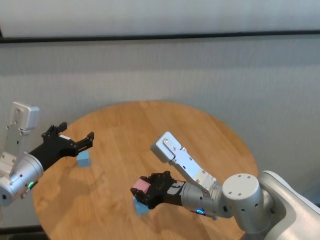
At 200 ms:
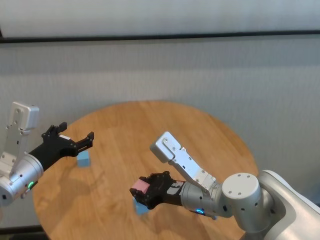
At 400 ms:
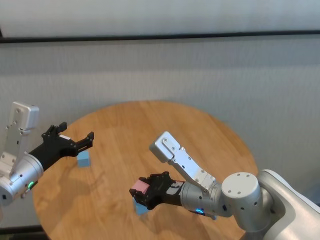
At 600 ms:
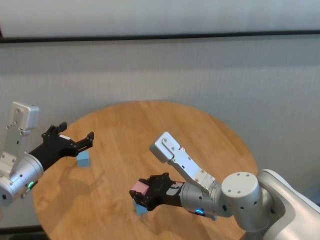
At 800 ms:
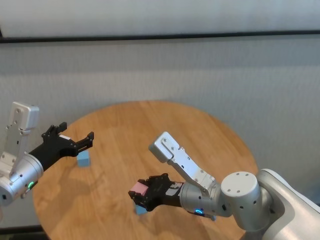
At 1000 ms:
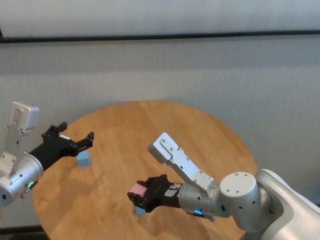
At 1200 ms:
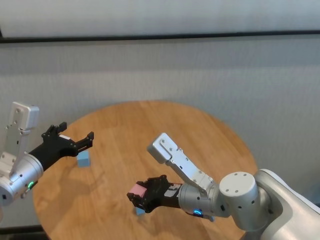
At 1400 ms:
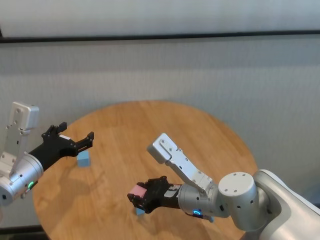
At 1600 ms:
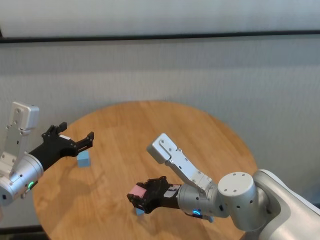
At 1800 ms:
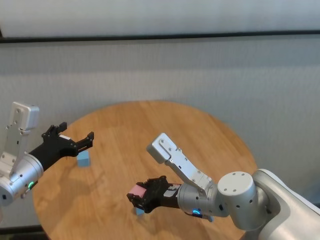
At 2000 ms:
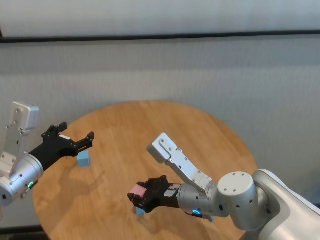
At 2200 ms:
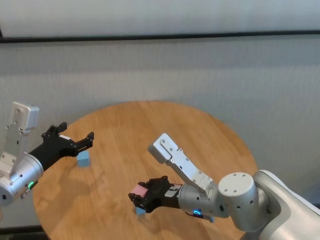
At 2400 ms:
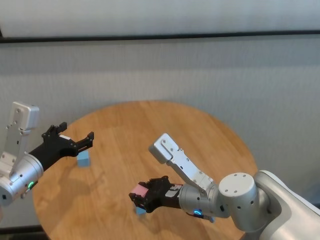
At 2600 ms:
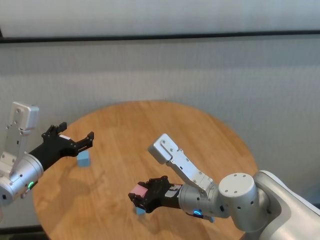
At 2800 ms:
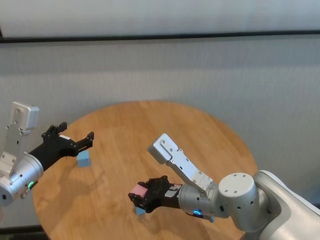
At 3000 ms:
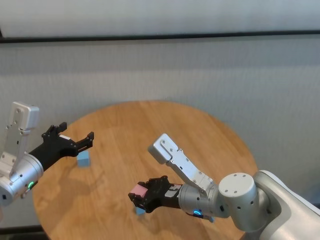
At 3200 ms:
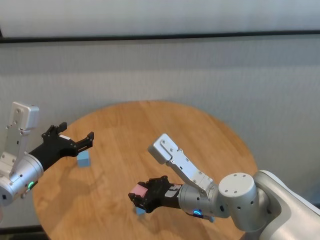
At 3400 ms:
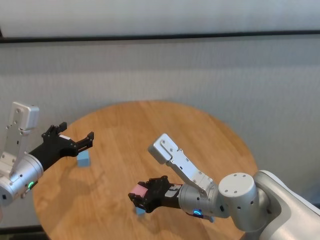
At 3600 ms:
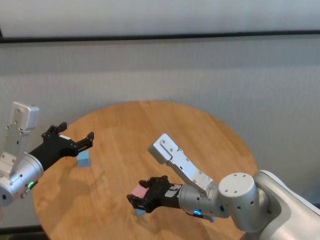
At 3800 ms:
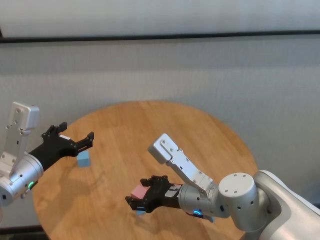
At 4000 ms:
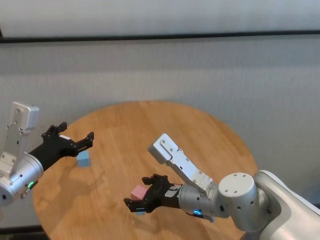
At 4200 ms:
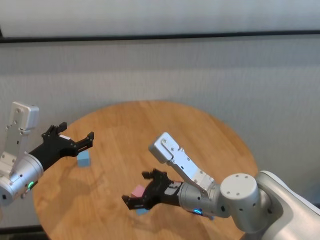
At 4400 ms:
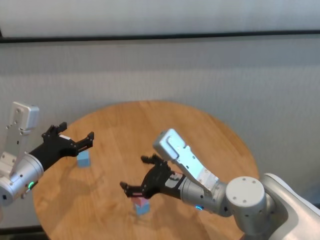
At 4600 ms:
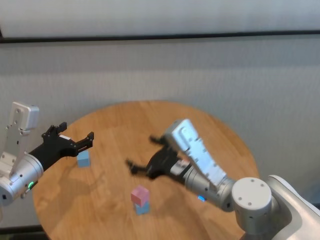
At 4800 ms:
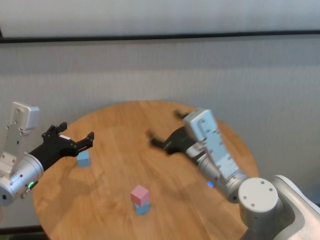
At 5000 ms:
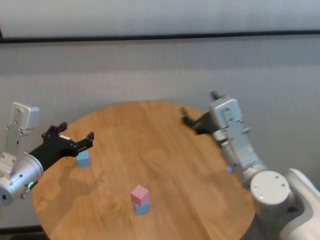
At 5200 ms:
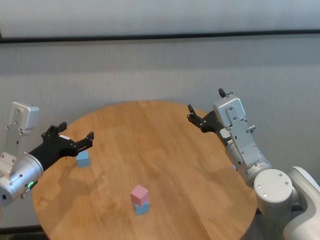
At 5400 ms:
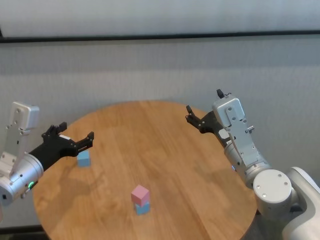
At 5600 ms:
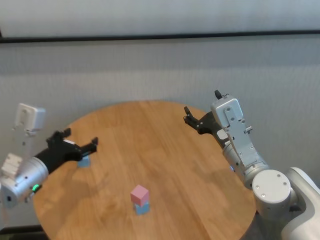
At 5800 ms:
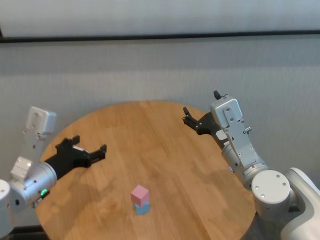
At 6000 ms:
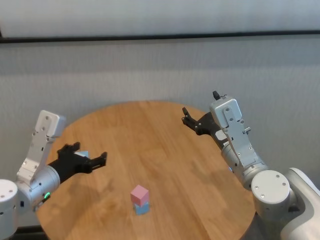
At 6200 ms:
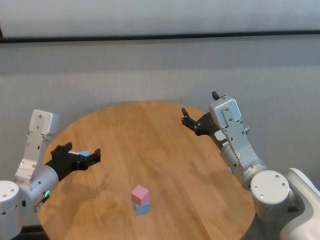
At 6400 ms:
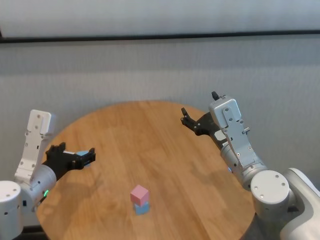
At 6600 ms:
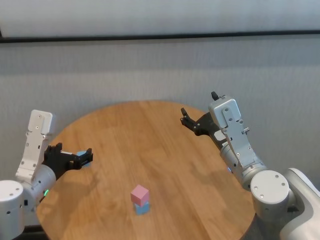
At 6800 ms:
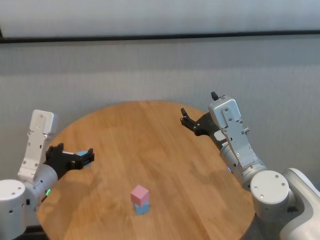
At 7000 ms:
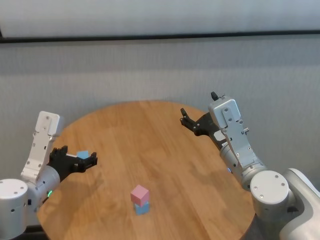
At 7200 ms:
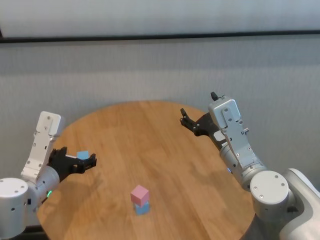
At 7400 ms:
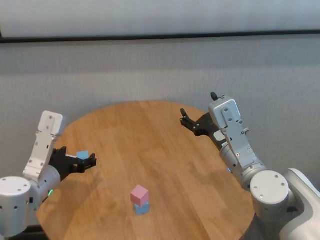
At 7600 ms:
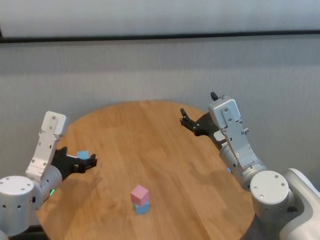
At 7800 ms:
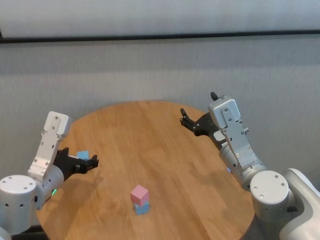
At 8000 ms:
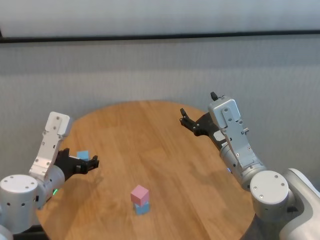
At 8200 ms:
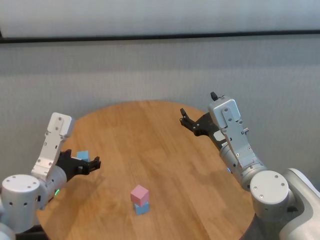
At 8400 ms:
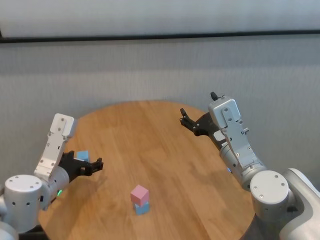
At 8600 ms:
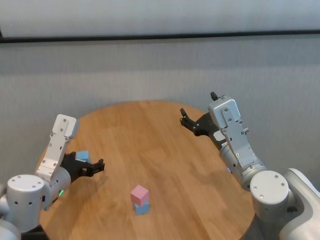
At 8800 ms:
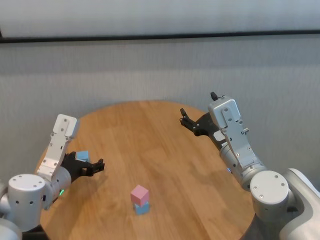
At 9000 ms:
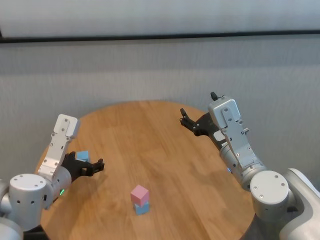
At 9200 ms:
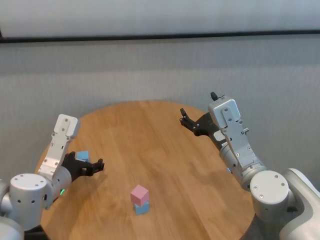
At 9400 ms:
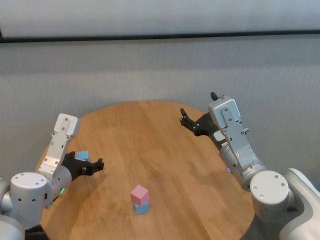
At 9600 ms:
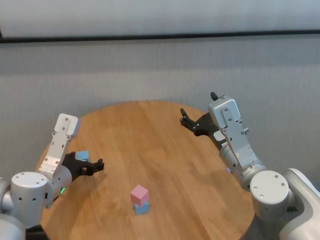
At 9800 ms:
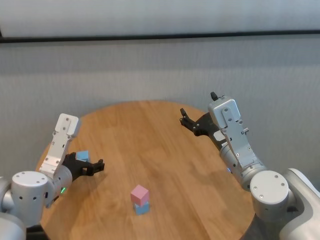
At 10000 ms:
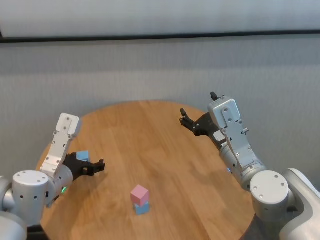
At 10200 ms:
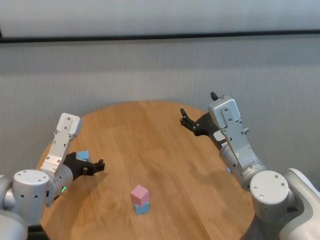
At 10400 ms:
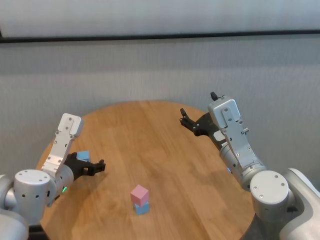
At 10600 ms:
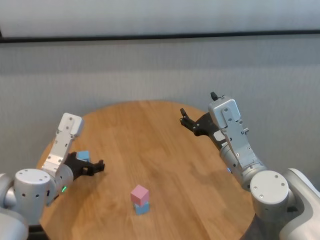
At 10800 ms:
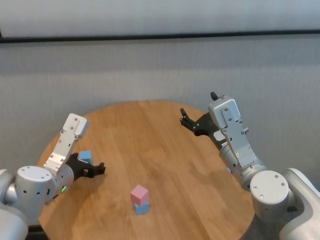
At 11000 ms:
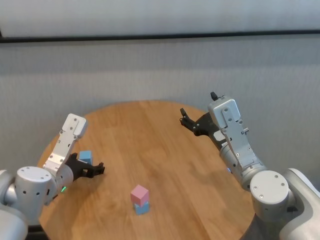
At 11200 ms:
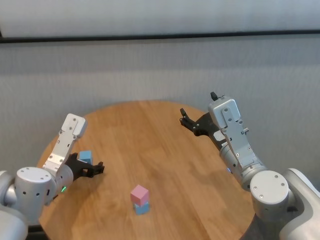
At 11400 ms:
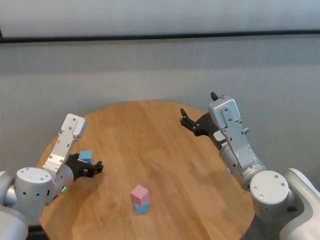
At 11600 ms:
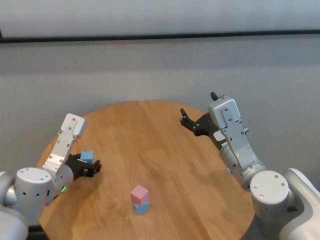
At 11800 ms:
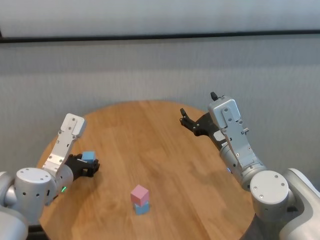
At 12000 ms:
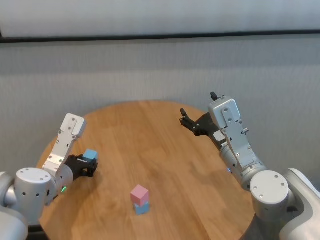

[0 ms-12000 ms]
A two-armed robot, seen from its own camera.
Task of the whole recording: stack building blocks on the table.
Step, 0 ms to 3600 ms: Place the pink building block on the blue building blocks with right gripper.

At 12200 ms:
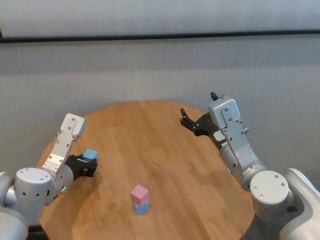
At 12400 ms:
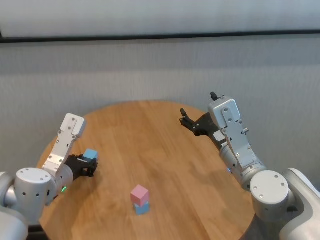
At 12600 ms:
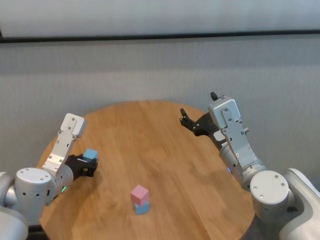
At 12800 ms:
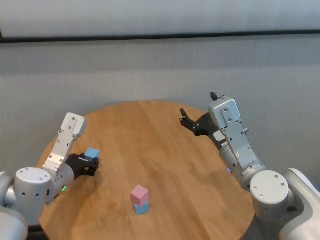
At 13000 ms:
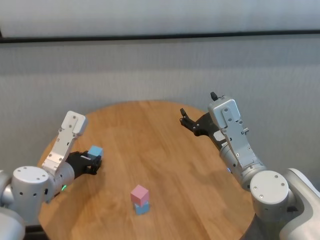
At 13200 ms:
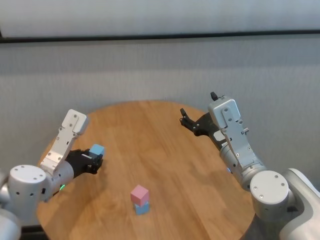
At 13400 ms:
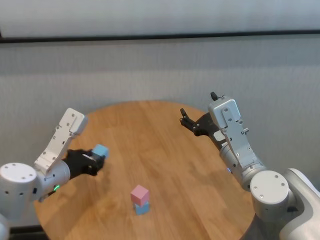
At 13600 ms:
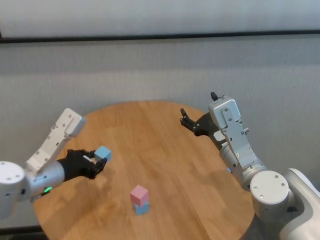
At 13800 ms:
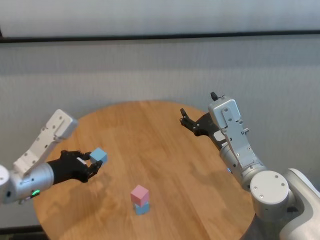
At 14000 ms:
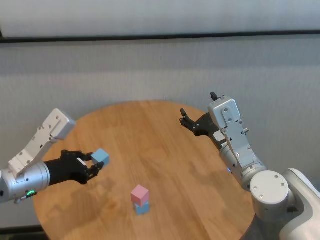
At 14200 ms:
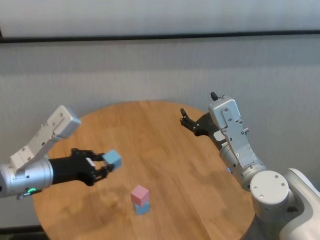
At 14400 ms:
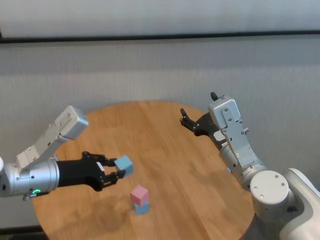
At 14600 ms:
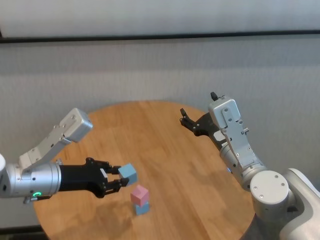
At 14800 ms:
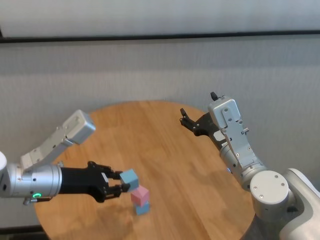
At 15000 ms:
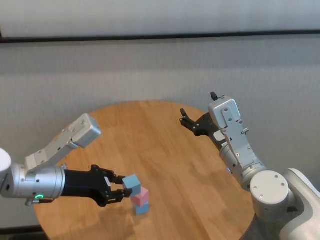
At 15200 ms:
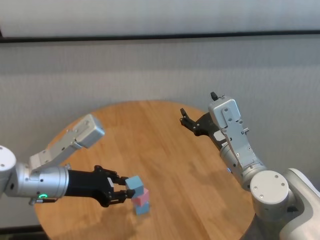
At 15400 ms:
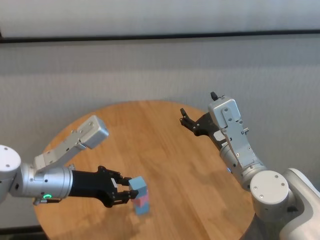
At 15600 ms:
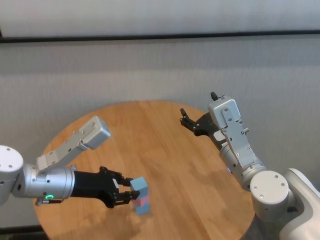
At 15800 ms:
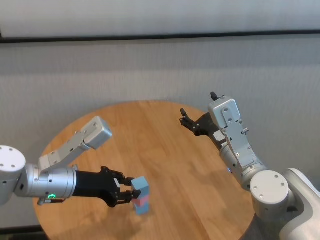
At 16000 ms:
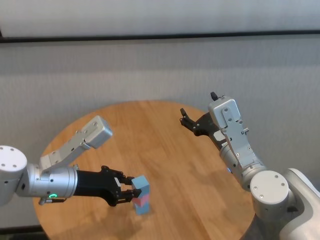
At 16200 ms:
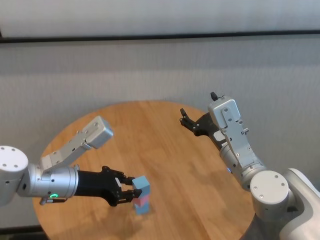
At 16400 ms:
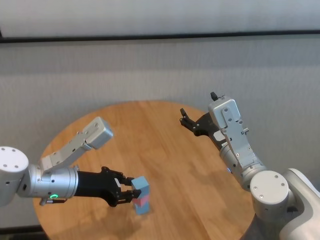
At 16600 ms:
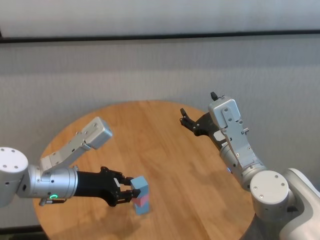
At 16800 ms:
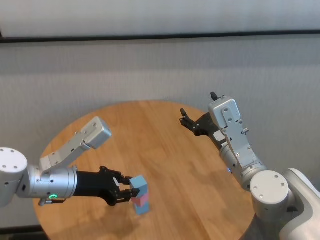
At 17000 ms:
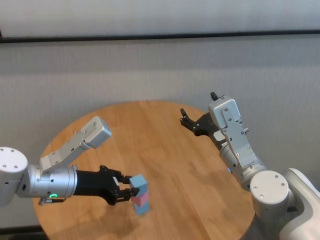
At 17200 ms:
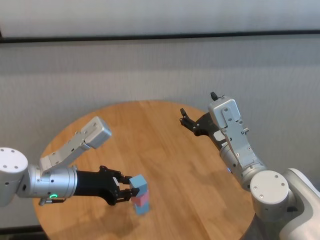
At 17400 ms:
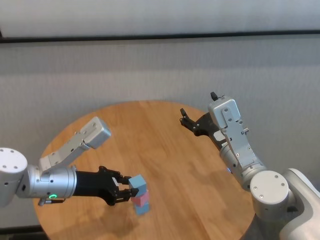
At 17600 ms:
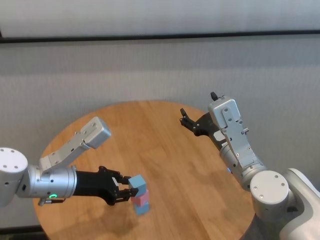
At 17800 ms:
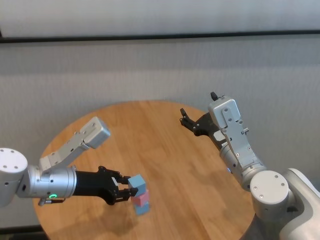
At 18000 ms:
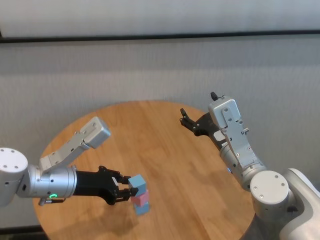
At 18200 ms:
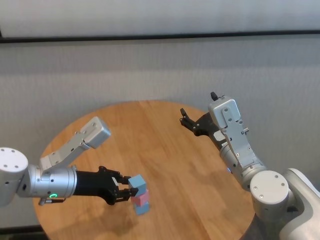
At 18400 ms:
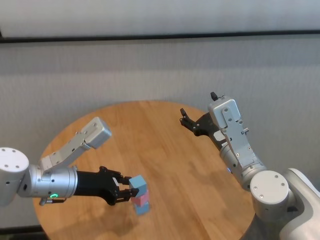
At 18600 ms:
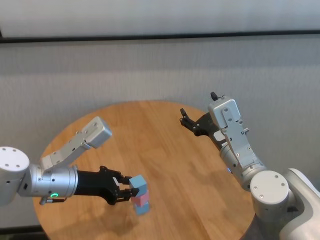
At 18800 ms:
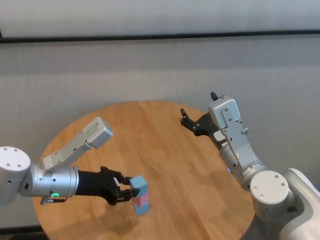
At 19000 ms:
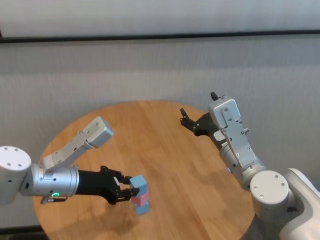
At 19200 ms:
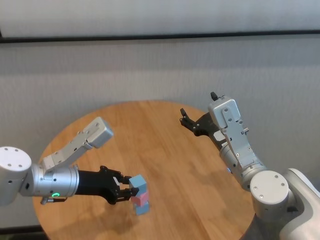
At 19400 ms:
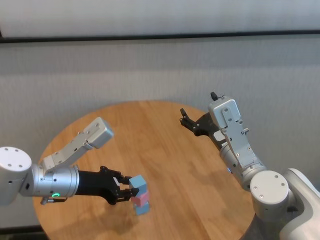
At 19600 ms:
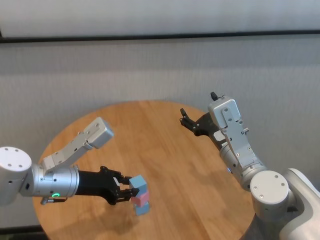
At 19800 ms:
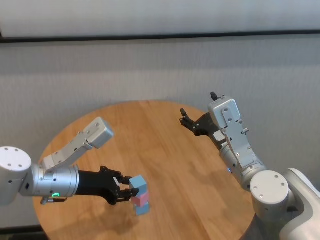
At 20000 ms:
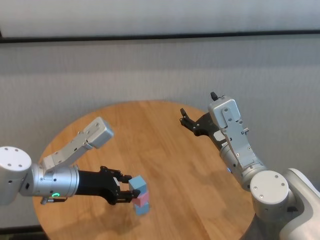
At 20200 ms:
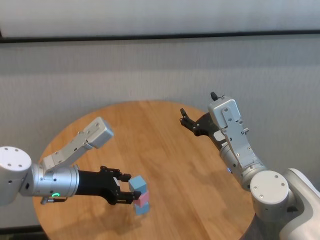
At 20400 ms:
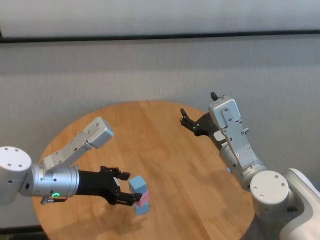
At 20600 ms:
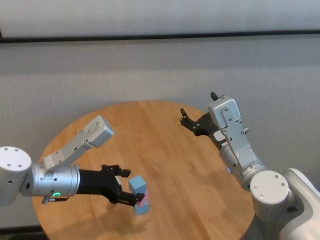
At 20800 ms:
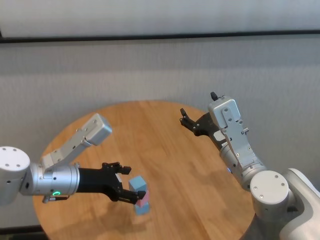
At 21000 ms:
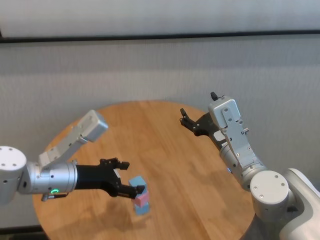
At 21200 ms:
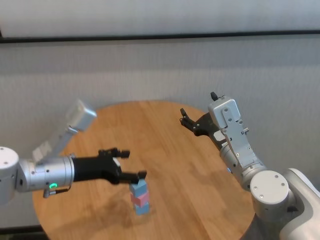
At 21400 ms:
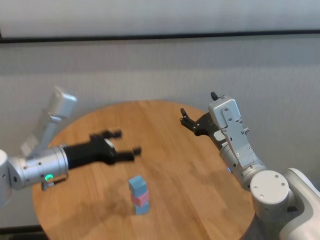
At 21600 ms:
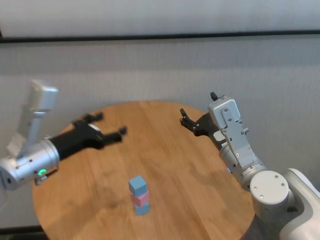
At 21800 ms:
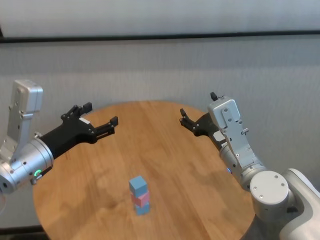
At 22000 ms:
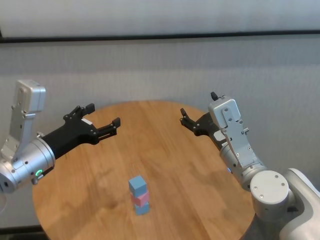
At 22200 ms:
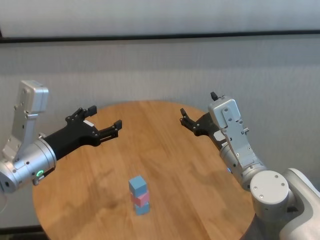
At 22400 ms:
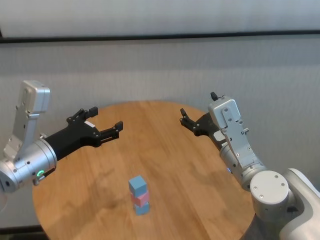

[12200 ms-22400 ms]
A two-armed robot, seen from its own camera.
Task of the whole recording: stack building blocks on the table.
Step, 12800 ms to 20000 ms: Place the blue building block on the pink building blocks with left gripper.
